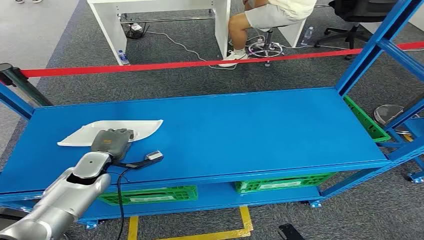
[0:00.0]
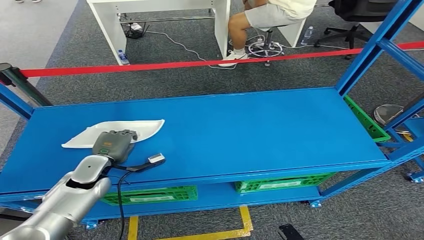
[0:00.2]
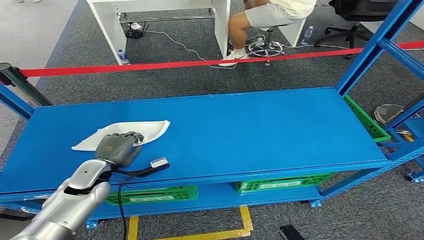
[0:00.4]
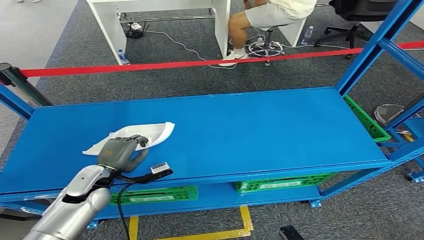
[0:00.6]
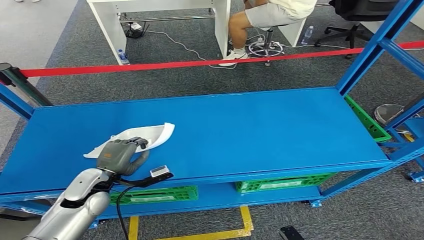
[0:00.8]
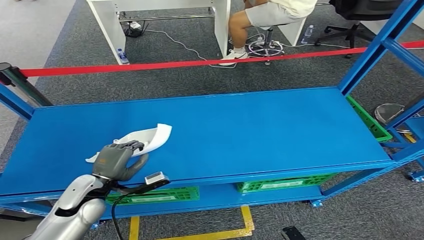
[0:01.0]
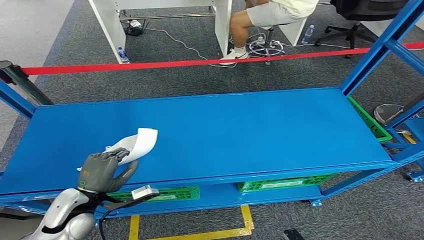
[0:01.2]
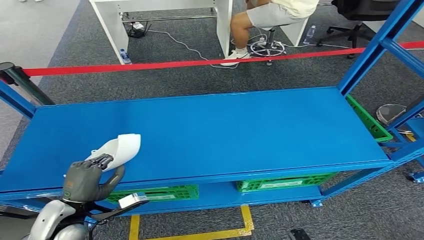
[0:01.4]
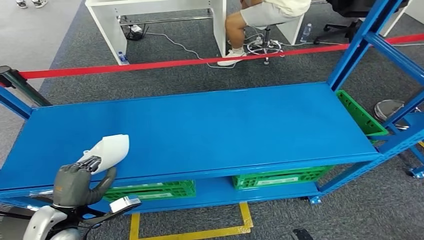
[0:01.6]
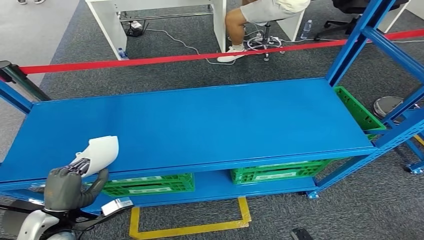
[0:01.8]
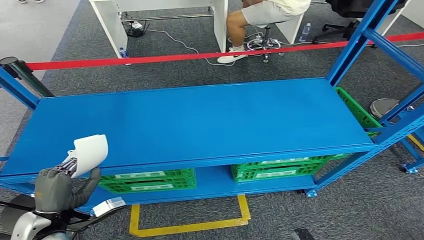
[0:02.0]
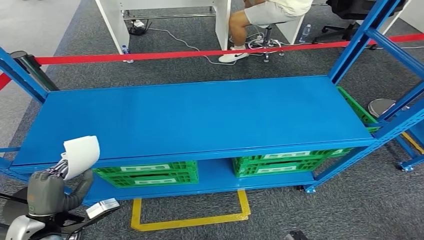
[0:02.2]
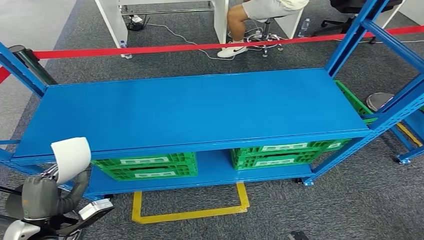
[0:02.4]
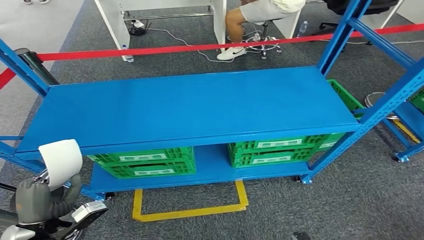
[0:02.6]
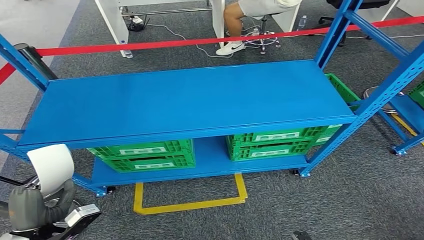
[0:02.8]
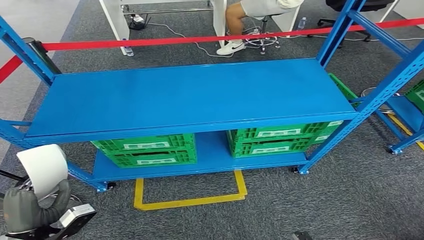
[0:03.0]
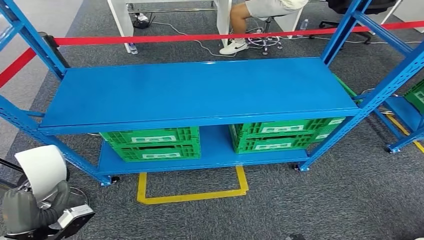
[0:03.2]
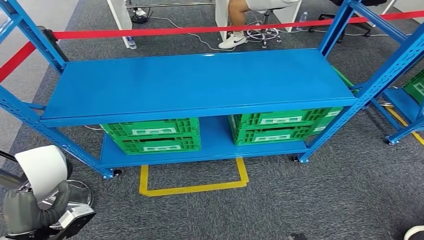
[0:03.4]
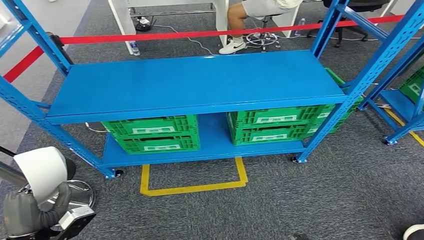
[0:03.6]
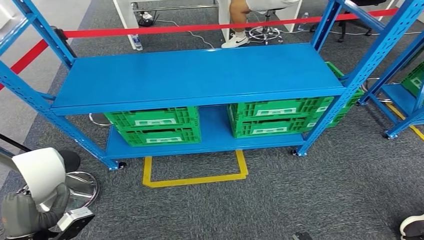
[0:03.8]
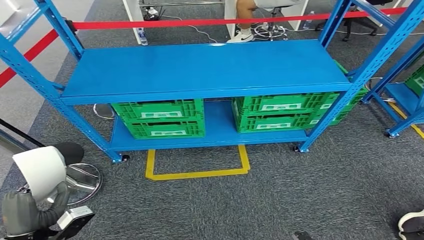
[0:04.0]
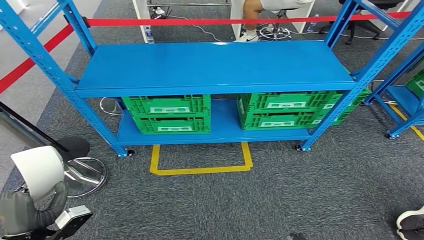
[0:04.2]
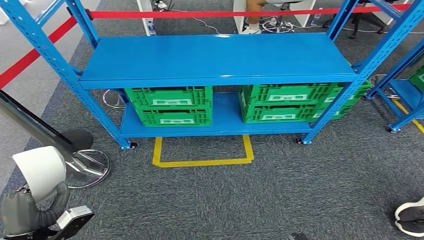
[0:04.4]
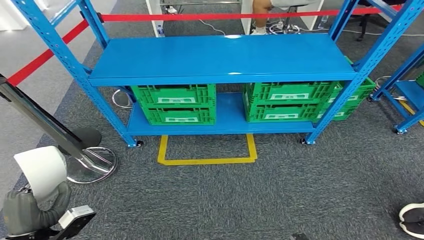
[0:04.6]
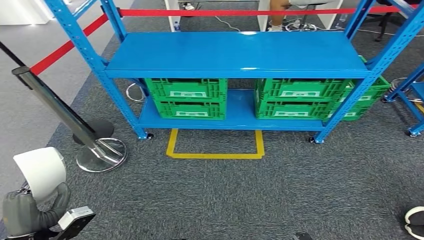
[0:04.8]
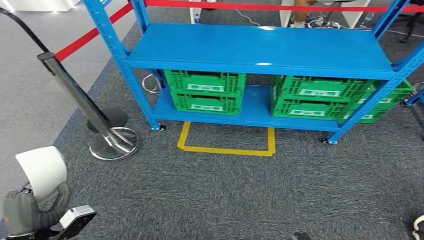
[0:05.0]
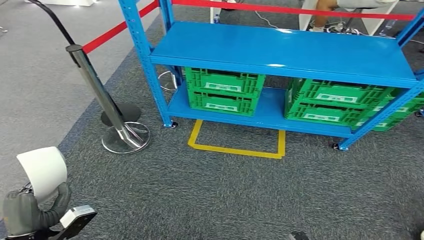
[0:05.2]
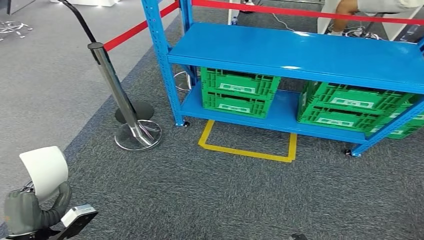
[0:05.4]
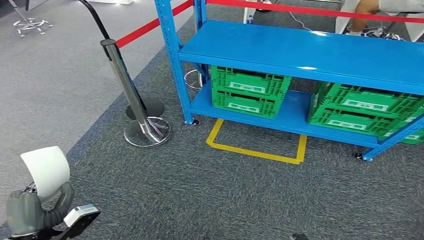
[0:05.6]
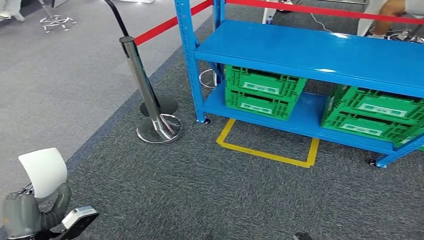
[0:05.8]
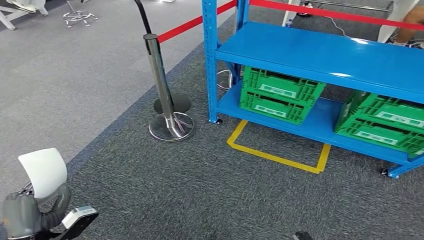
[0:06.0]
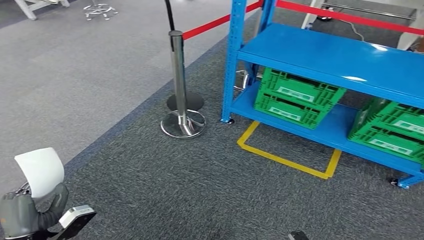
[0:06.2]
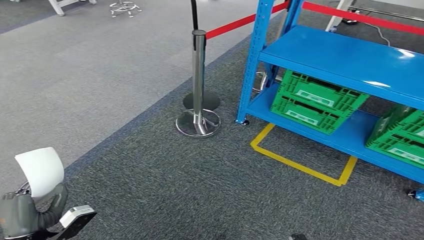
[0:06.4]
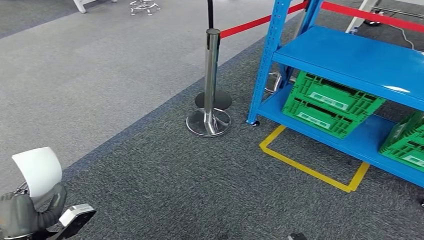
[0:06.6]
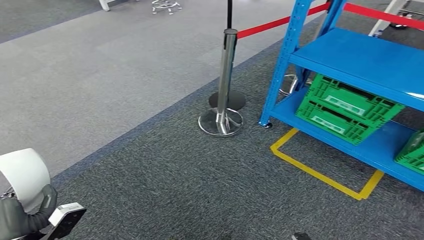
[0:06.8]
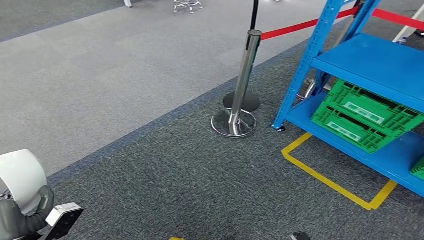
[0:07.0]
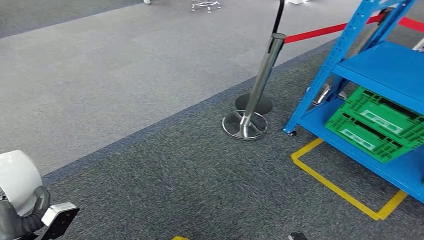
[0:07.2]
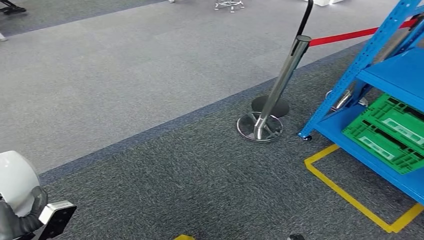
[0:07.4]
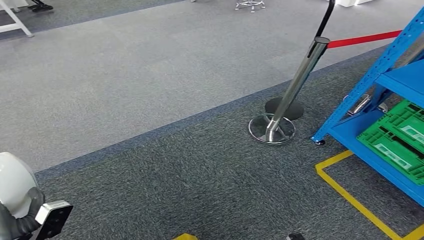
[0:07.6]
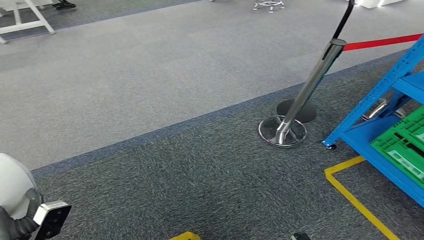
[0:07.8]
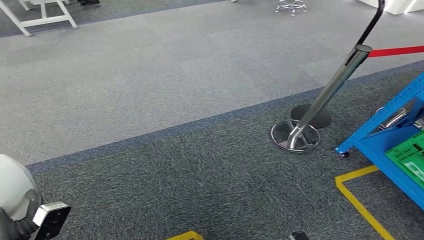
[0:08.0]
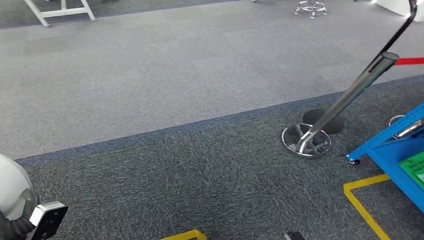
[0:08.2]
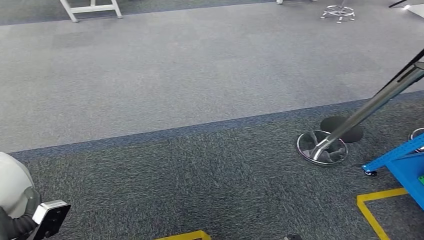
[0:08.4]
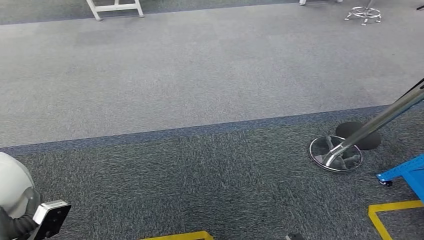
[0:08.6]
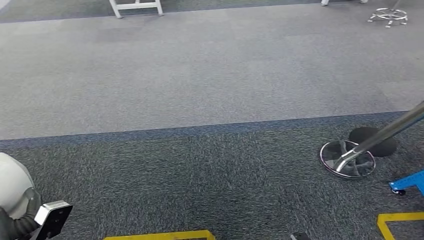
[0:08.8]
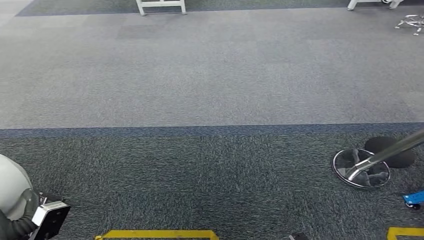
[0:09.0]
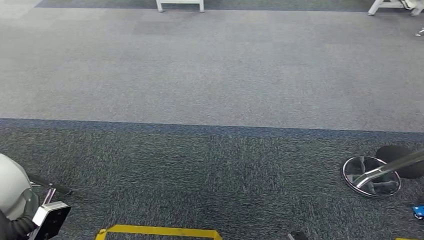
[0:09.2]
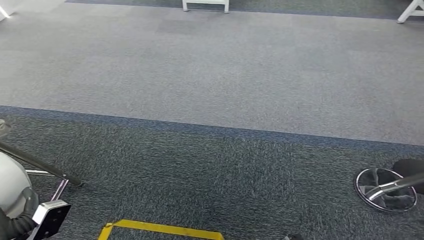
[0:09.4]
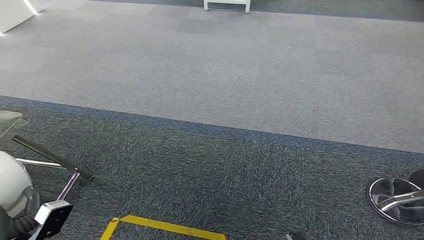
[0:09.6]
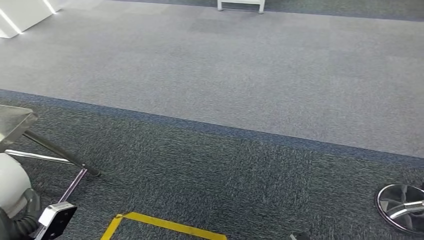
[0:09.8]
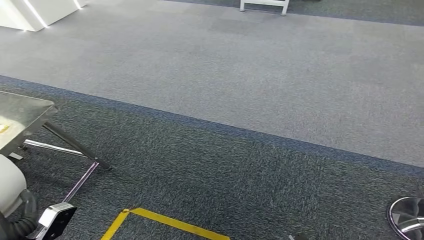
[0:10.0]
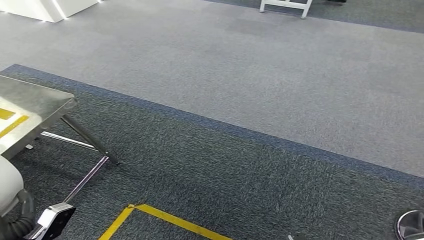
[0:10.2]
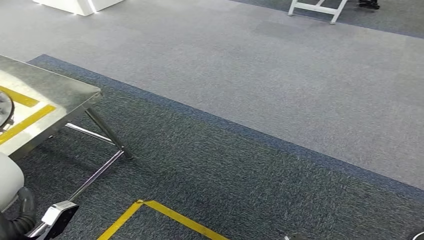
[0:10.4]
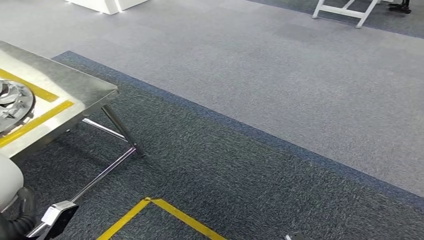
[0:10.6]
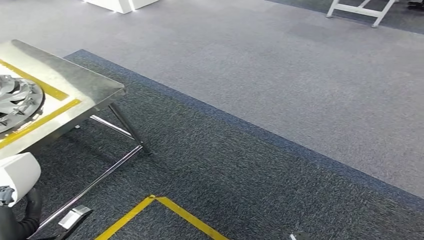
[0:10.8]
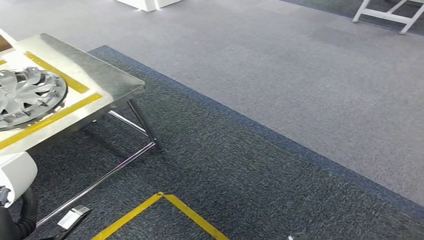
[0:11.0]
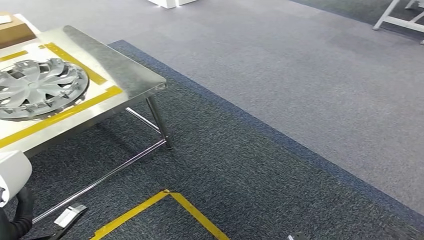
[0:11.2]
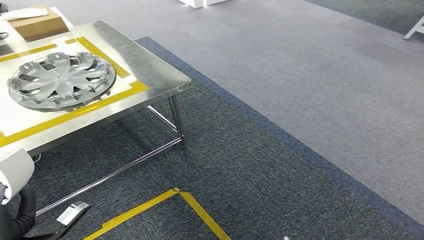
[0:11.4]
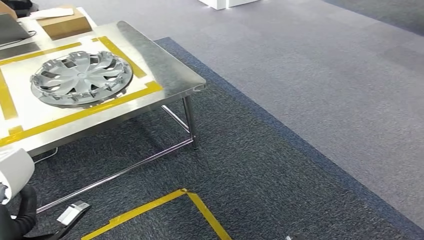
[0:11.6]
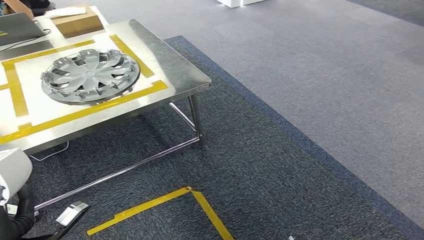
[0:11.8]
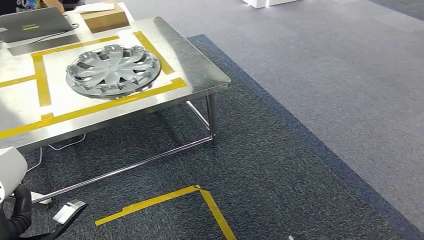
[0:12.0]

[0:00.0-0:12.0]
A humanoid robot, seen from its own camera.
Step, 0:00.0 to 0:02.2: Pick up the small component from the shelf.

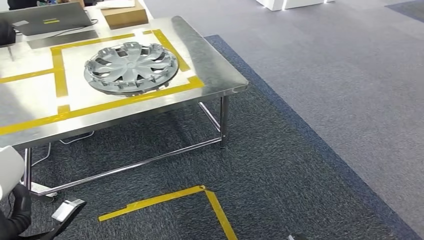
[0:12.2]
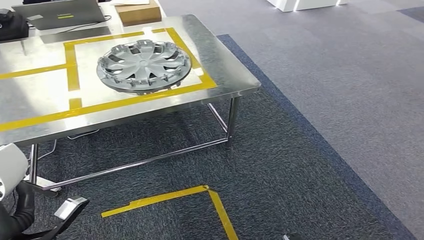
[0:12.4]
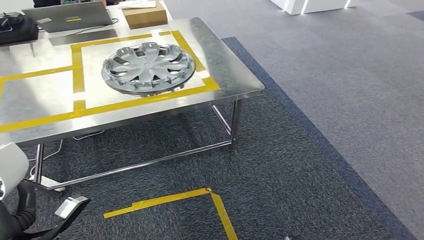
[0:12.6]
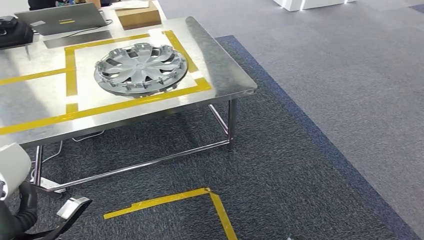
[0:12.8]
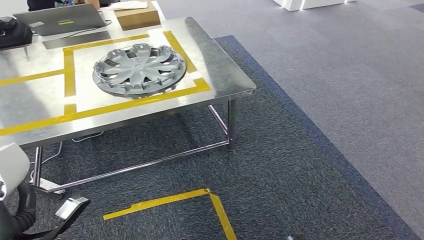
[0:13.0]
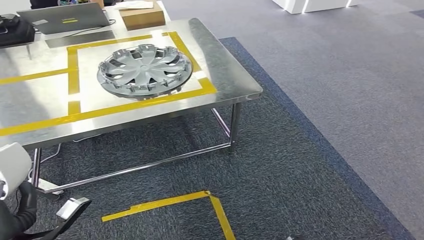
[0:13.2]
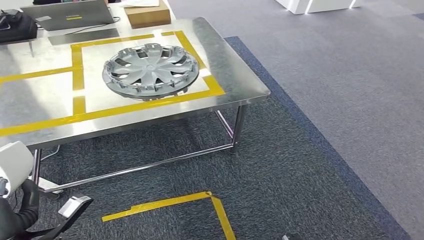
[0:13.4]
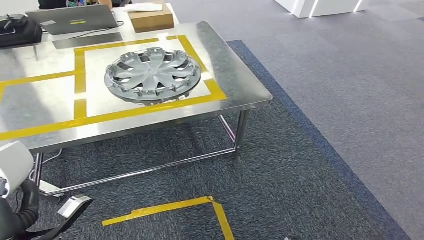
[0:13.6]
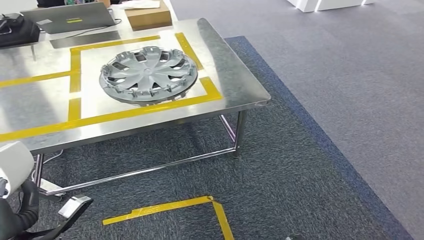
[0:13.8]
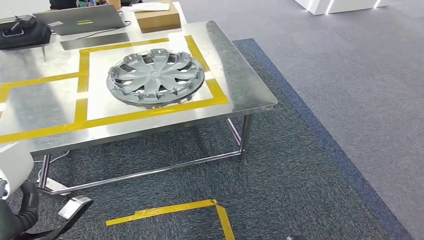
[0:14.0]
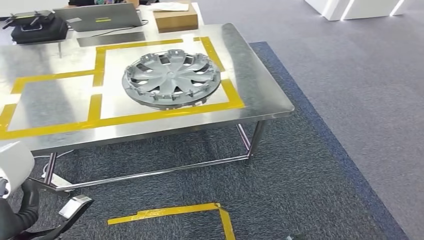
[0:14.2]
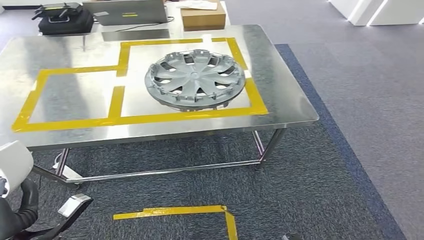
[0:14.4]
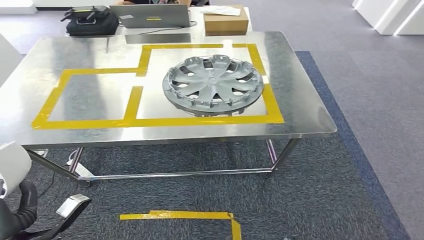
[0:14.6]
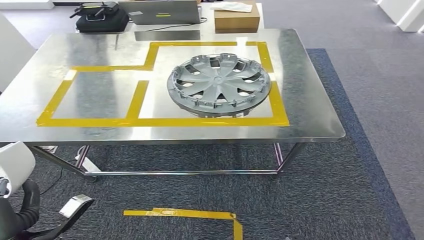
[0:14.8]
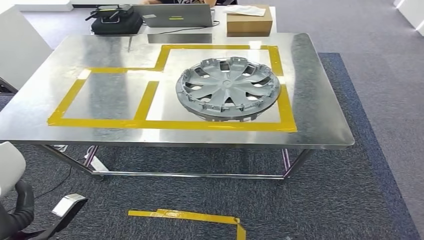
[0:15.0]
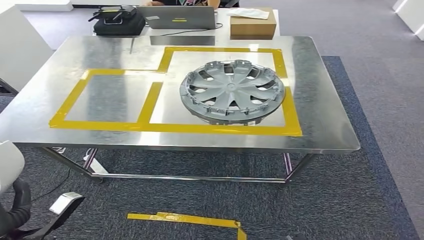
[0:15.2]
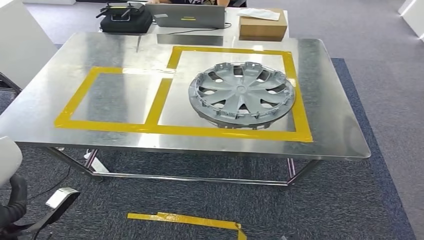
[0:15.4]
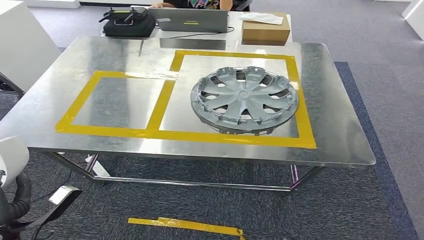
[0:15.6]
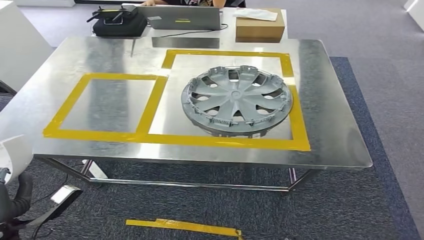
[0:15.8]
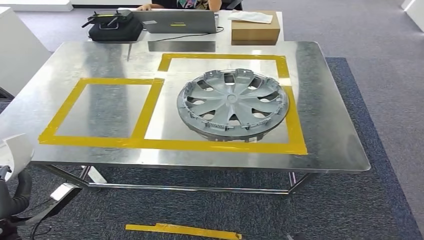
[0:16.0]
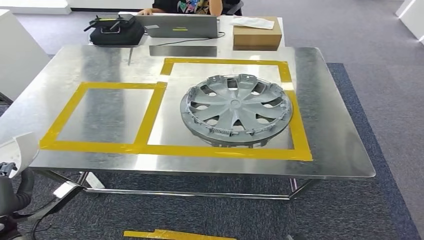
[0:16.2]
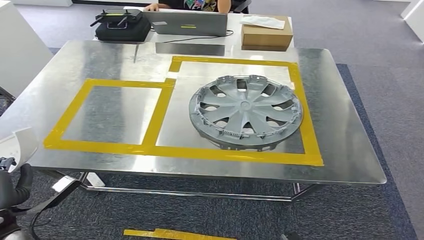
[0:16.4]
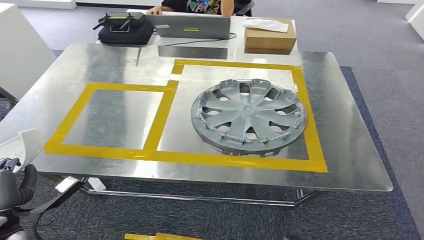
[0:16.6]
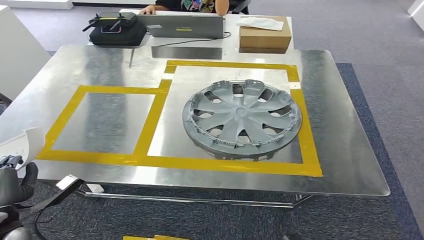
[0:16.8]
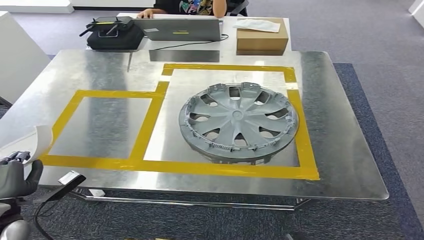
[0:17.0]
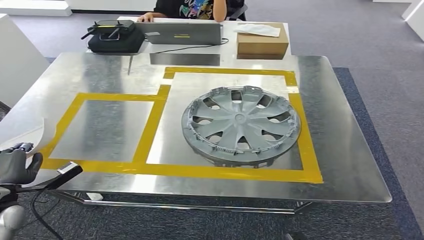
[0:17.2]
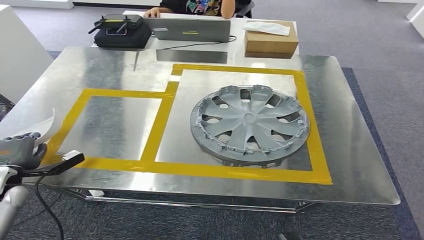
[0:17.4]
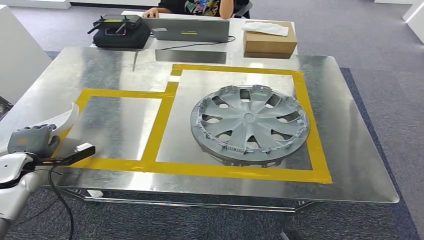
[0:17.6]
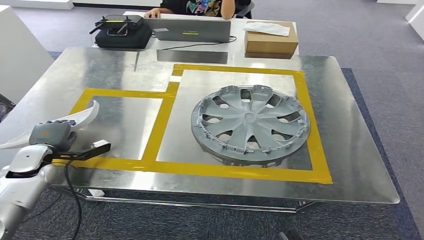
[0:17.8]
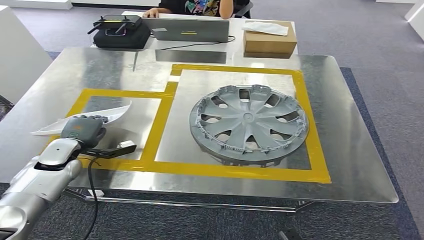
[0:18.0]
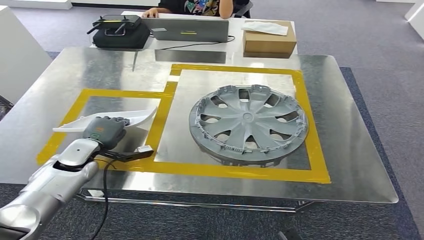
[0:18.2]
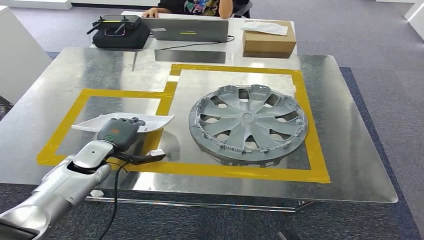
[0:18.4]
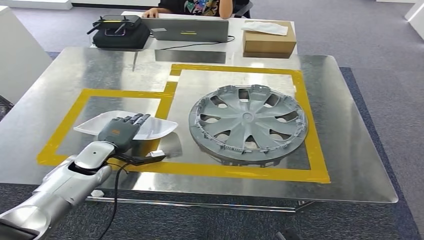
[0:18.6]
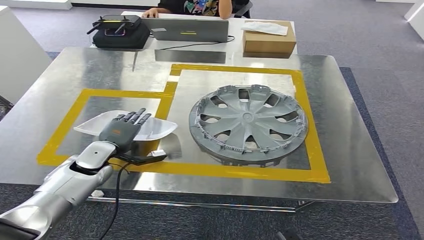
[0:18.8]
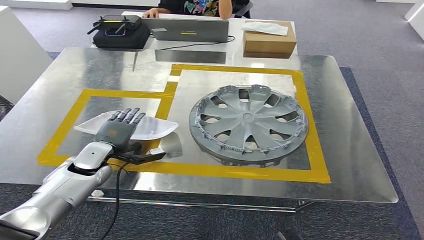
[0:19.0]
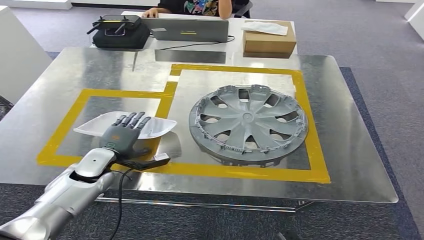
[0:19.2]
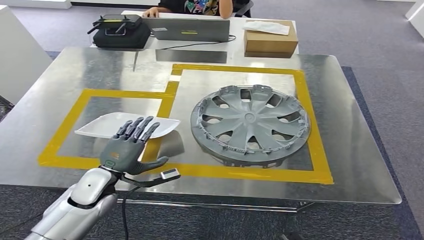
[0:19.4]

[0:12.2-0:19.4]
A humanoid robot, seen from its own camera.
0:18.0 to 0:19.4: The left hand moves to the right and backward, approximately 15 cm.
